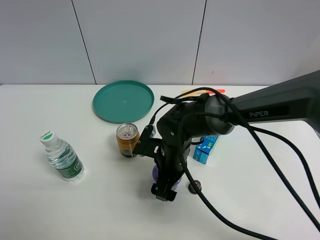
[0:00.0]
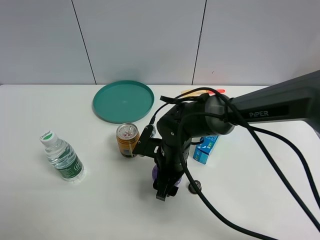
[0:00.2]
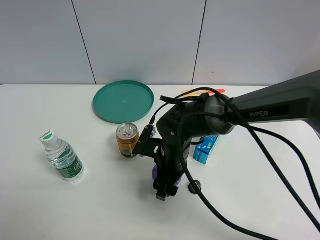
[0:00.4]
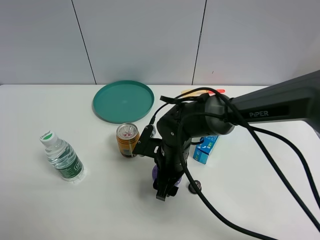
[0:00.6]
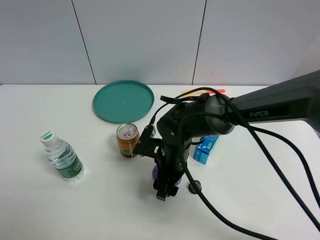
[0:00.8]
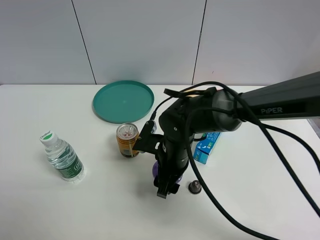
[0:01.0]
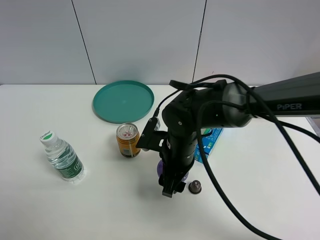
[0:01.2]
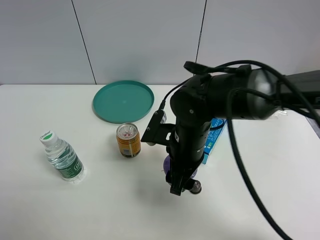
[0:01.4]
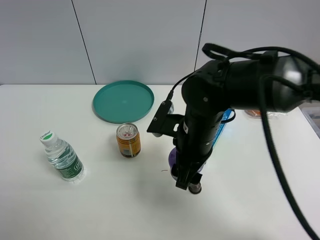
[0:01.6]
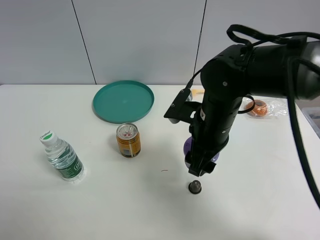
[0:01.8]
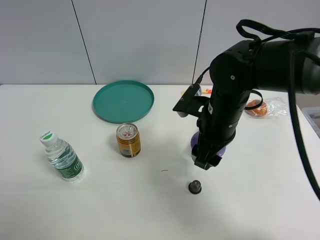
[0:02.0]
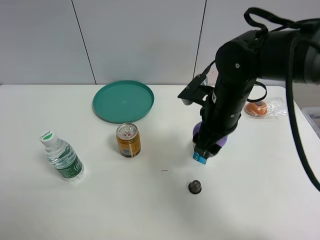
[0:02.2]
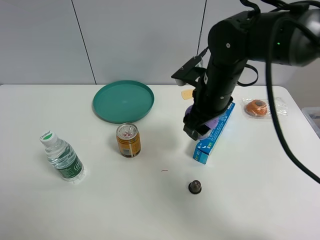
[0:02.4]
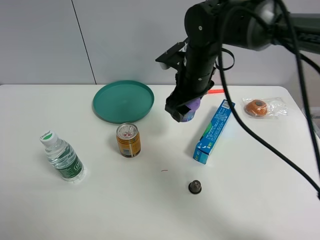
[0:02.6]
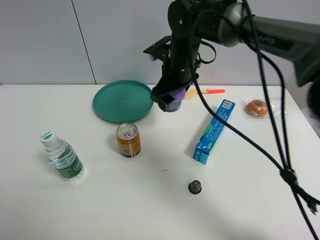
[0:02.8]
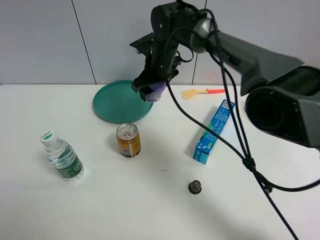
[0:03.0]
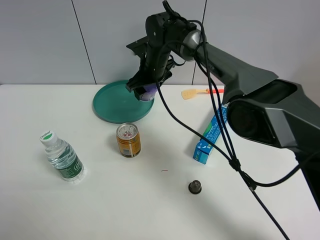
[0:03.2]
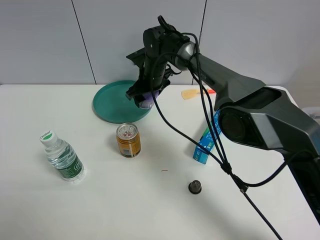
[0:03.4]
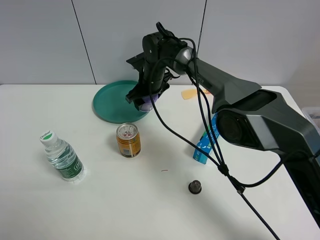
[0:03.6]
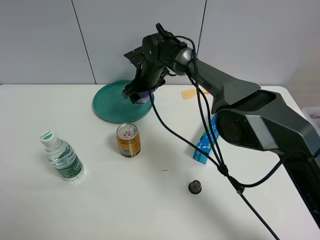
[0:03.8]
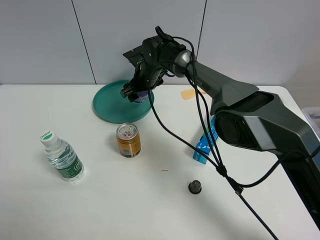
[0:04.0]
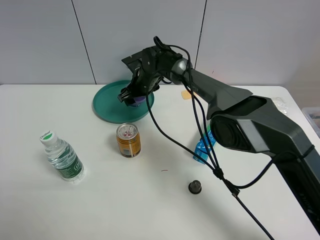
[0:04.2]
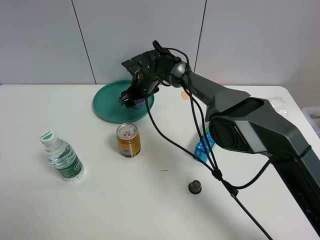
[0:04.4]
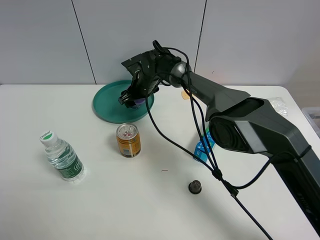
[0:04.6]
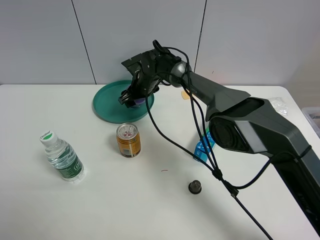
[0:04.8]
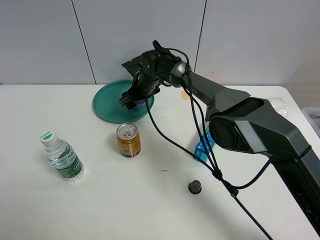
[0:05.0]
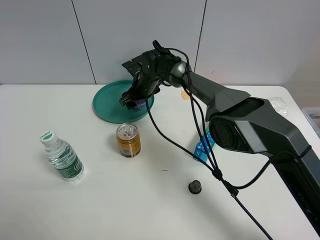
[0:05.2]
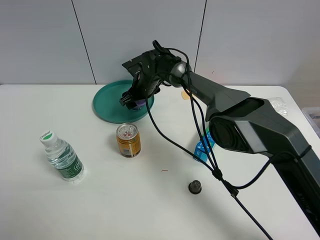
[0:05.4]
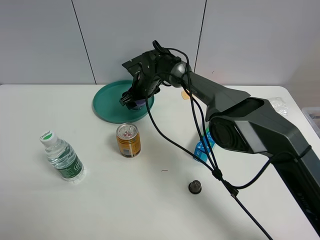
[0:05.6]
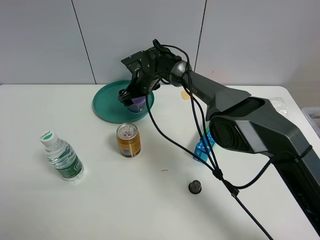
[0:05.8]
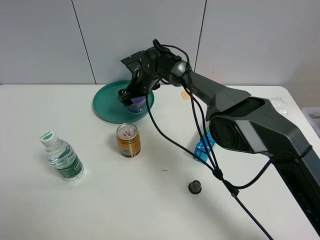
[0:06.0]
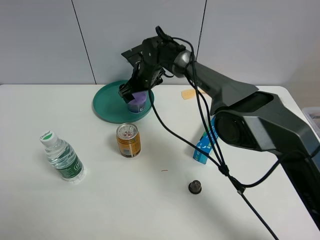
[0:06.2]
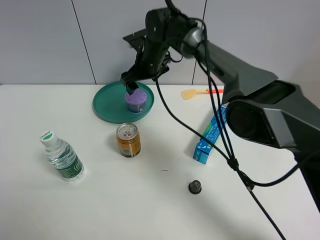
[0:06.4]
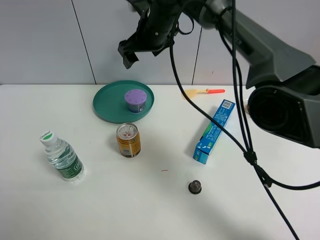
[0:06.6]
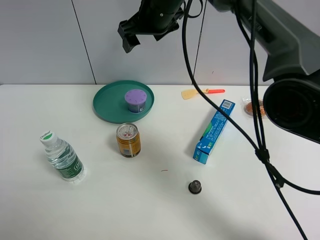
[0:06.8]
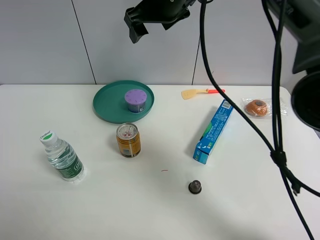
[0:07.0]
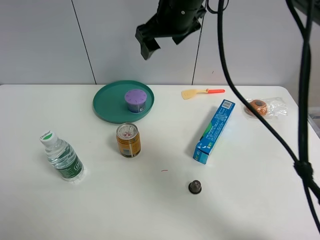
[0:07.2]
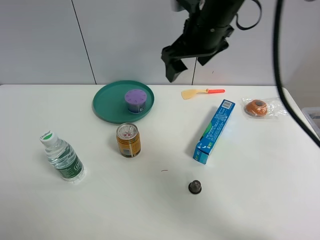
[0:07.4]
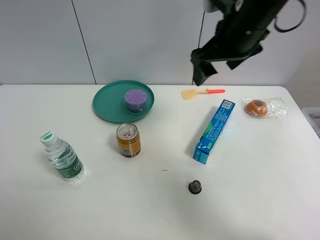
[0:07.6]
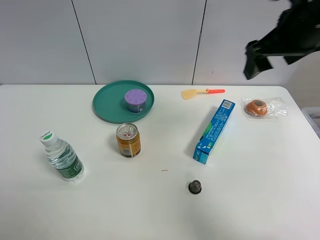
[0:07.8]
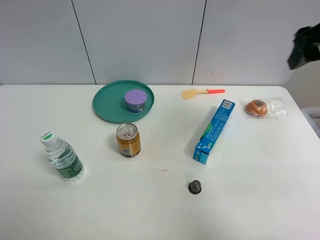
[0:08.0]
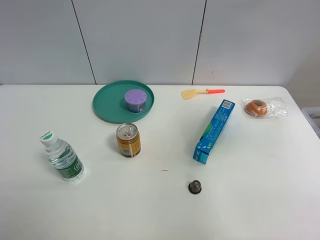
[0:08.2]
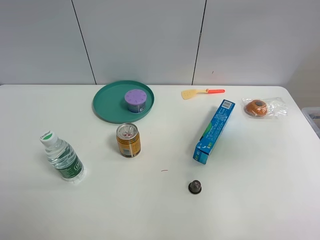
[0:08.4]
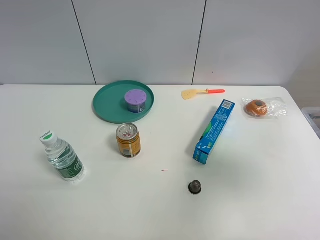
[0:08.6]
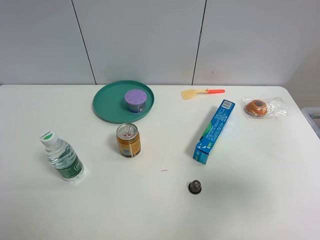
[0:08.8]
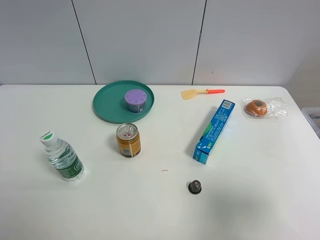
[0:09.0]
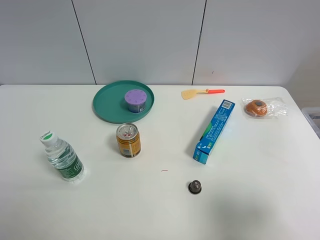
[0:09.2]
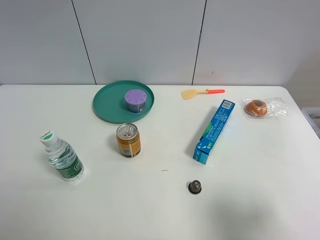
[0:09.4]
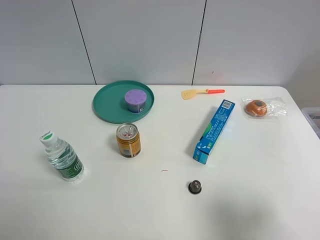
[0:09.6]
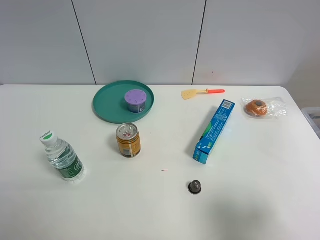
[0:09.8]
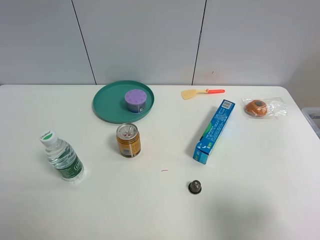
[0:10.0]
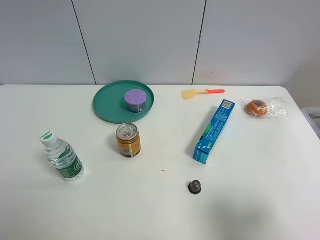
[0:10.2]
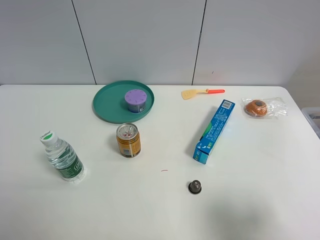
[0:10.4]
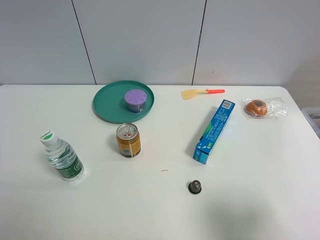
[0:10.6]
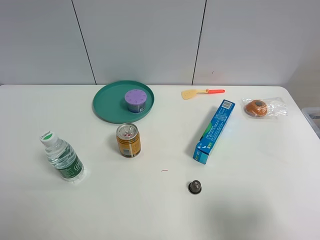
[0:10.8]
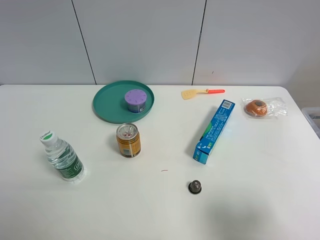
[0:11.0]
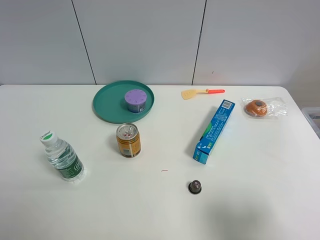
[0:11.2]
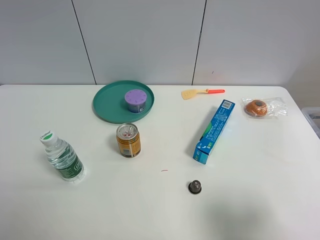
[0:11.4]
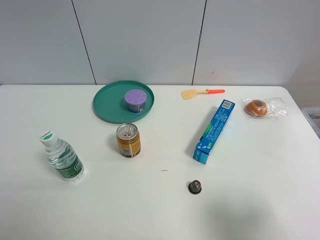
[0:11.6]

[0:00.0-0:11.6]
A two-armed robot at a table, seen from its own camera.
Task of the whole recording: the gripper move the object.
Step, 0:00.6 to 0:06.2: Place the Incense box into the green plate with the right gripper.
0:00.0 to 0:01.4: The right gripper is displaced upward by some 10 cm, and closes up.
0:01.4 to 0:02.8: The right gripper shifts roughly 15 cm forward.
0:02.8 to 0:04.4: The right gripper heads downward, forward and to the left, covering about 15 cm.
0:04.4 to 0:05.8: The right gripper opens its fingers.
0:05.8 to 0:07.2: The right gripper shifts roughly 25 cm upward and backward.
0:07.2 to 0:08.8: The right gripper heads backward and to the right, covering approximately 40 cm.
0:08.8 to 0:10.2: The right gripper shifts approximately 10 cm downward.
0:10.2 to 0:11.6: Both grippers stay put.

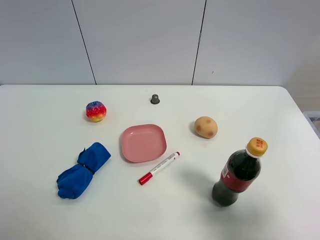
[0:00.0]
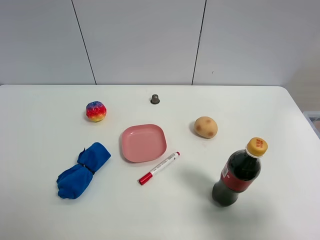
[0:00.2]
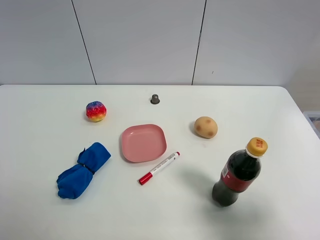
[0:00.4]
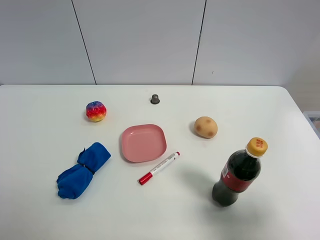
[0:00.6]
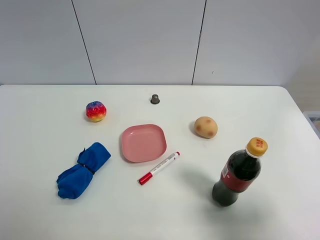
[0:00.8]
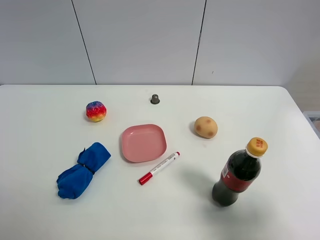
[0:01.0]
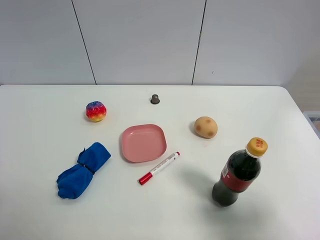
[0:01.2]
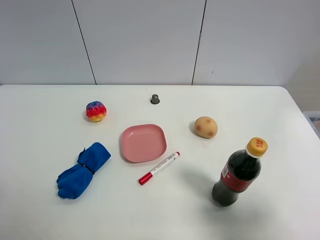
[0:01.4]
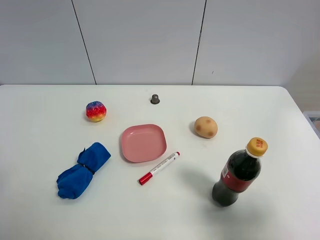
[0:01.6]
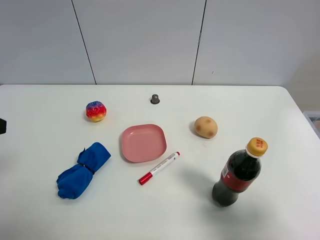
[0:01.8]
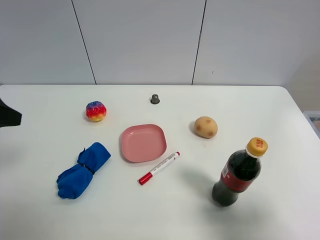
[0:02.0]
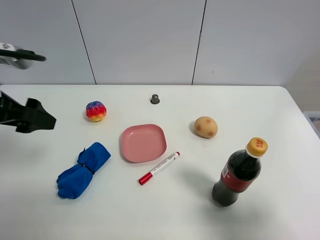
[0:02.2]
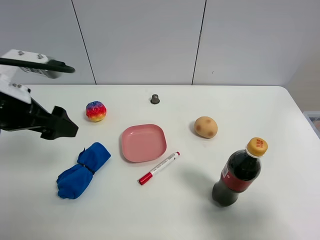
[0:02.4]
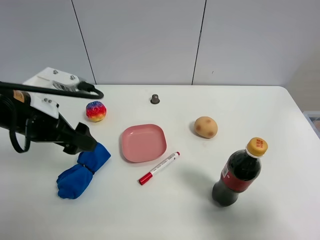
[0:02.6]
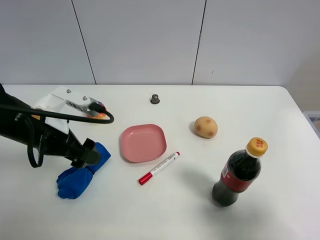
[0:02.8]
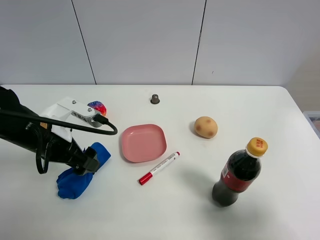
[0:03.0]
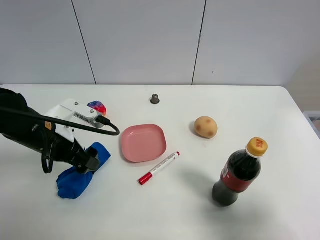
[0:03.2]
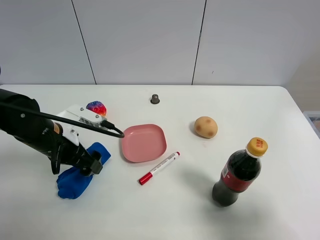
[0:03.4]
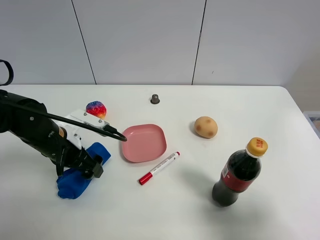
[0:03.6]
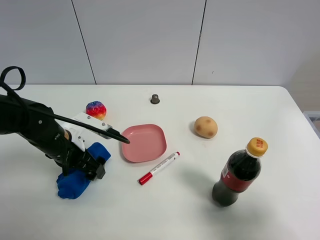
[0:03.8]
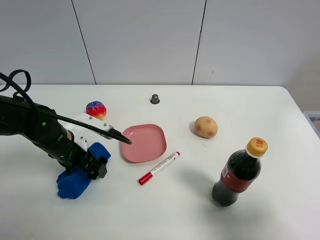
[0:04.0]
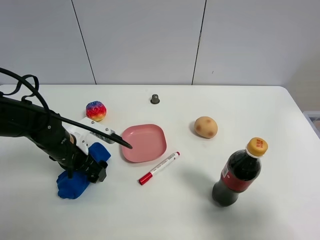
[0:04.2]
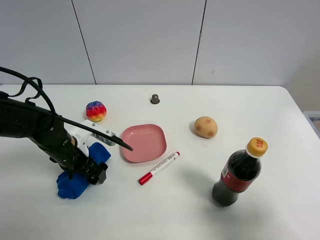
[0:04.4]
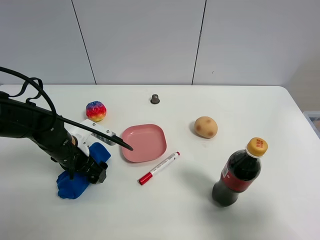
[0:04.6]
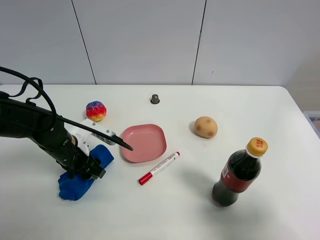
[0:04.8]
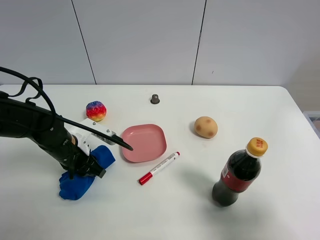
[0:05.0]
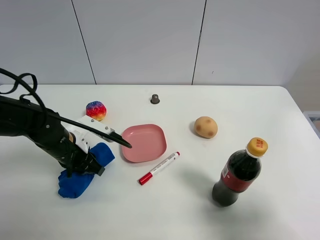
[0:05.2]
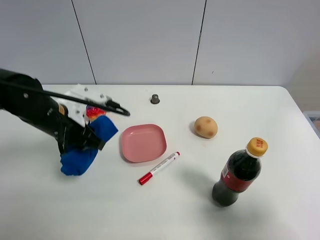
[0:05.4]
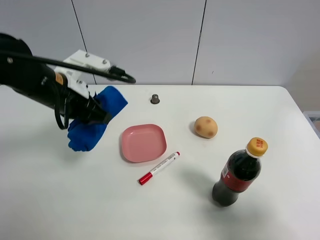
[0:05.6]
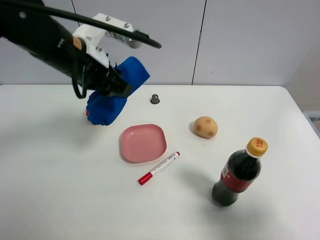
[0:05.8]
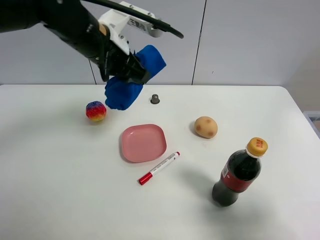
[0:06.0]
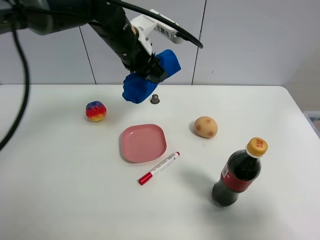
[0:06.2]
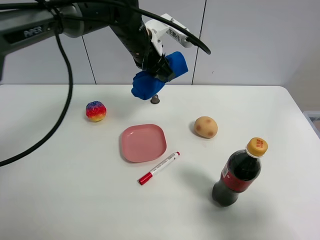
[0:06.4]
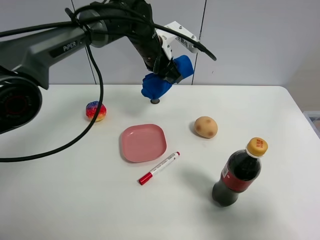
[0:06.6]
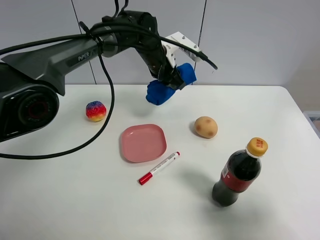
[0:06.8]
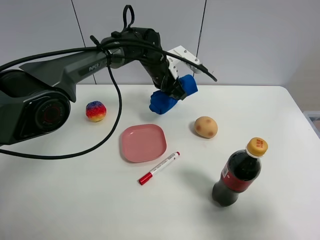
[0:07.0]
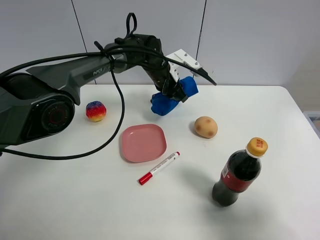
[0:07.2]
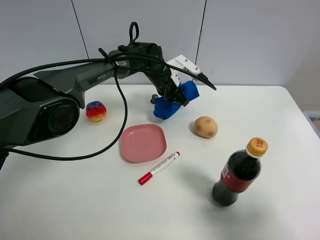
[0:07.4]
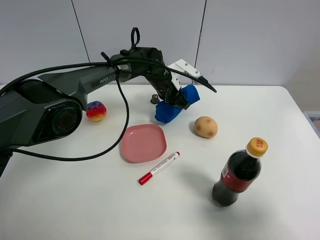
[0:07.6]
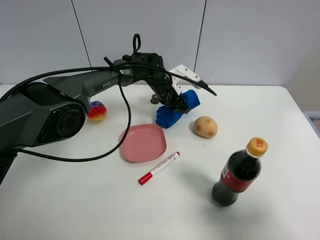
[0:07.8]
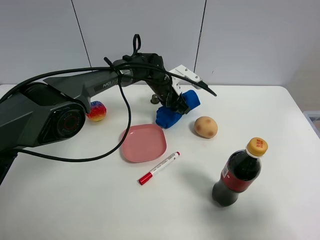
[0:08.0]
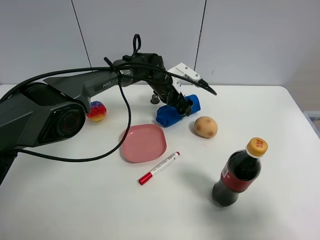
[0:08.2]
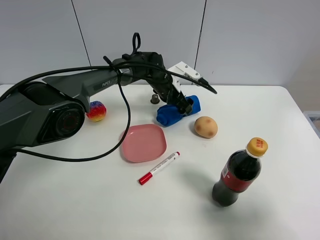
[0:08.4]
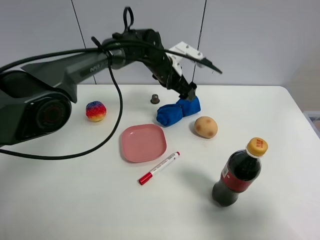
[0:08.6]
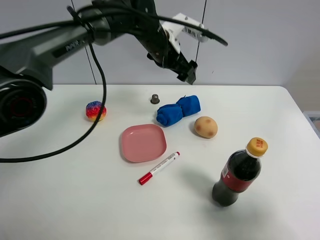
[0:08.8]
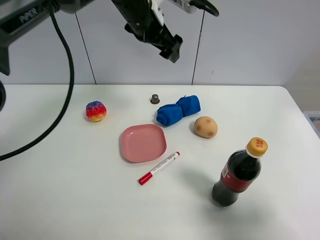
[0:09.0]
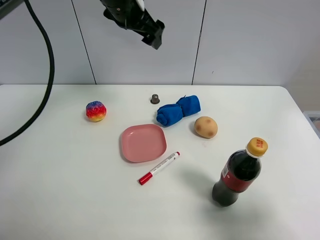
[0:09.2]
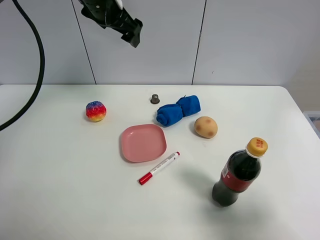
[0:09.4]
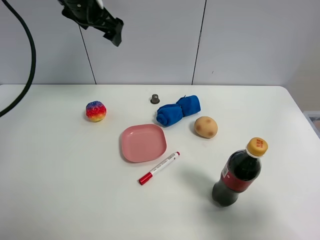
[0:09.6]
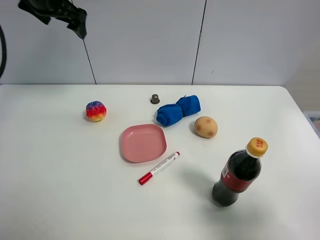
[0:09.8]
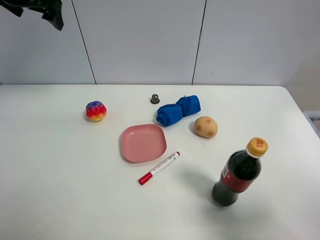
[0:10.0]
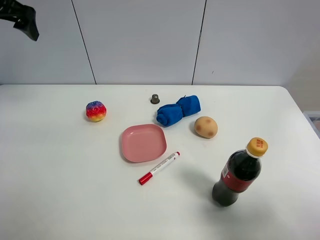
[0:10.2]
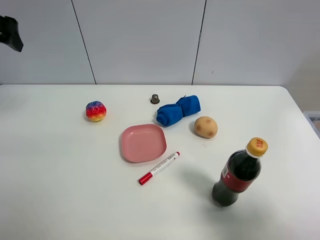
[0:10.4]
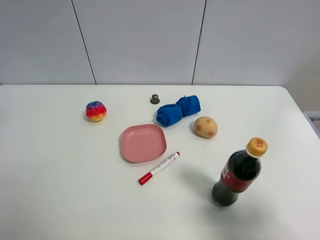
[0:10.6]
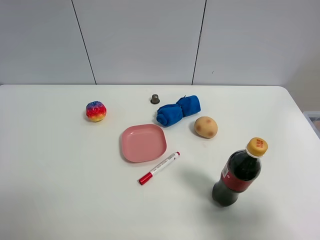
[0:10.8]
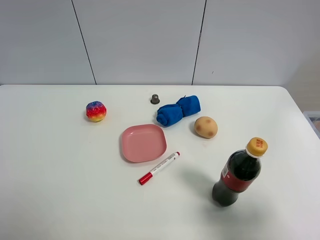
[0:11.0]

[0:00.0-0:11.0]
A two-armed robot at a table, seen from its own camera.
Task of the whole recording: the gripper move the object.
Step, 0:00.0 to 0:04.8: Grasp the blue towel with the left gripper.
Step, 0:05.0 to 0:08.0: Place the blue towel on the table with the left gripper.
0:01.6 to 0:03.2: The left gripper goes approximately 20 cm downward, forward and to the right.
0:03.2 to 0:04.8: The left gripper moves downward, about 10 cm, and closes its fingers.
0:04.8 to 0:06.2: The left gripper is displaced upward, to the right and forward by about 25 cm, and closes its fingers.
0:06.2 to 0:07.8: The left gripper heads downward, forward and to the right, covering about 20 cm.
0:07.8 to 0:09.4: The left gripper is displaced upward and to the left by about 25 cm, and opens up.
0:09.4 to 0:11.0: The left gripper heads backward and to the left, covering about 40 cm.
